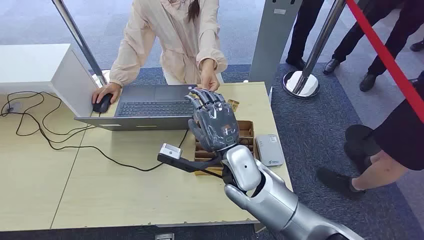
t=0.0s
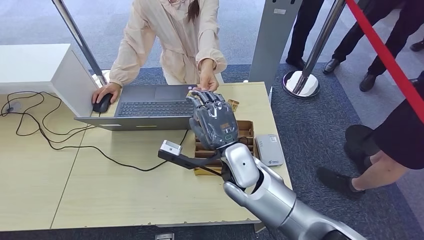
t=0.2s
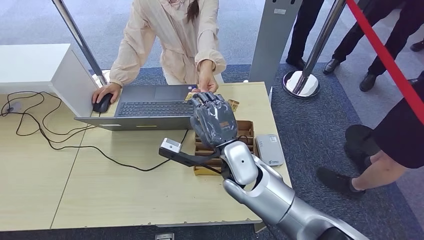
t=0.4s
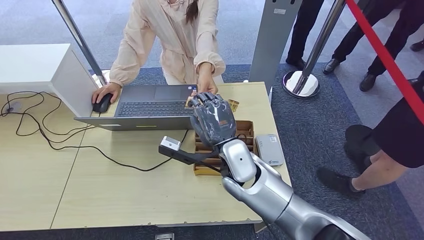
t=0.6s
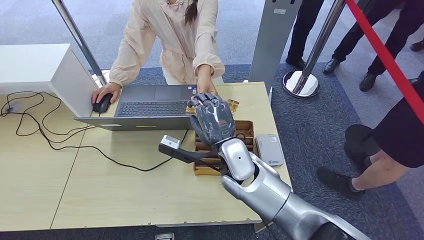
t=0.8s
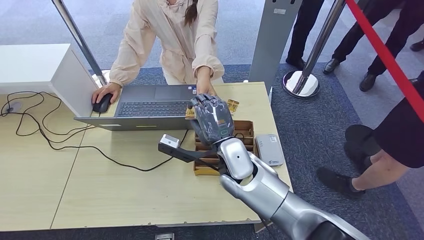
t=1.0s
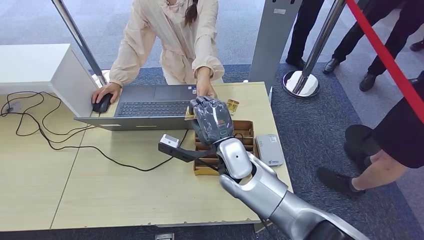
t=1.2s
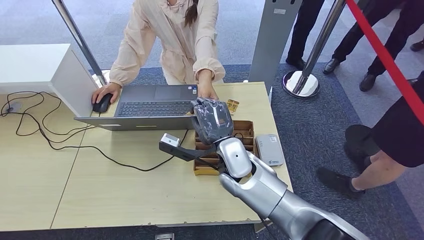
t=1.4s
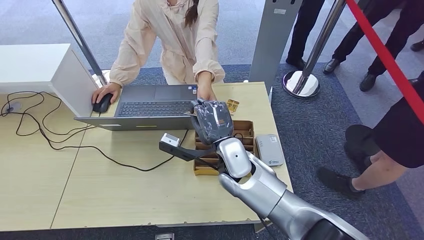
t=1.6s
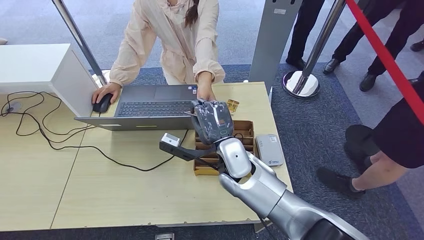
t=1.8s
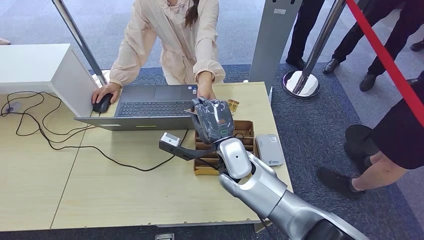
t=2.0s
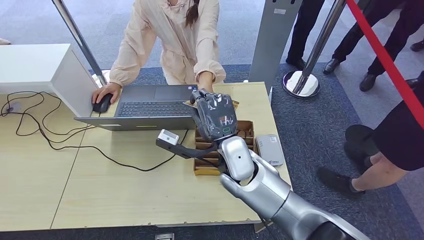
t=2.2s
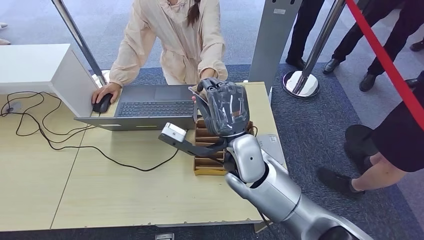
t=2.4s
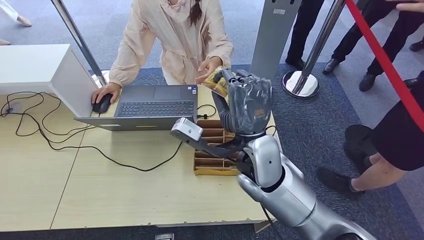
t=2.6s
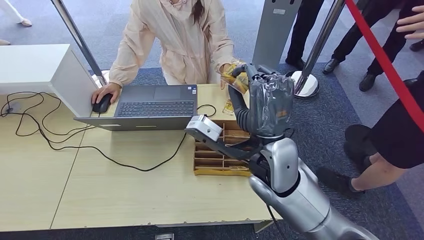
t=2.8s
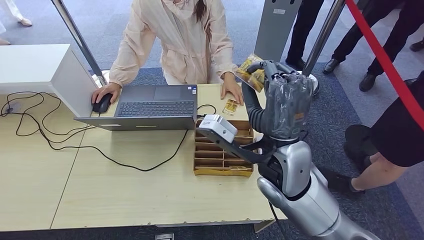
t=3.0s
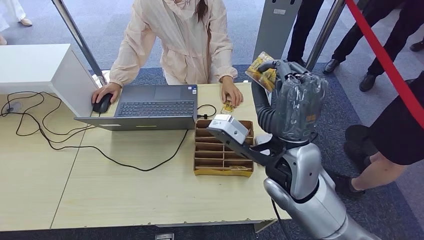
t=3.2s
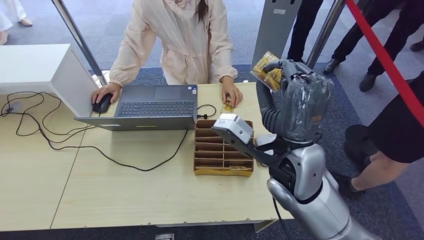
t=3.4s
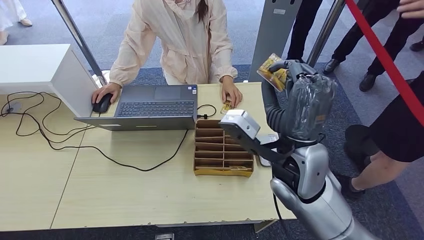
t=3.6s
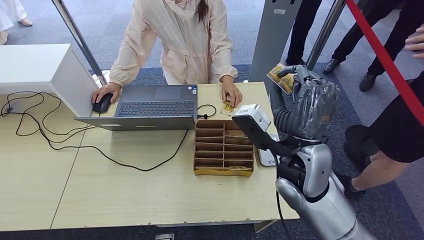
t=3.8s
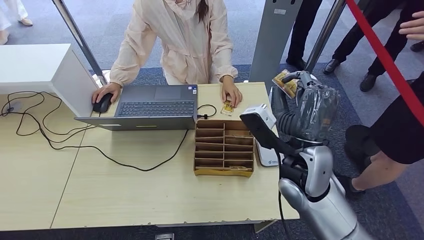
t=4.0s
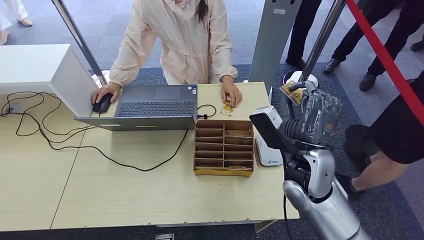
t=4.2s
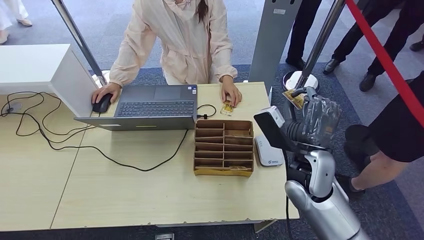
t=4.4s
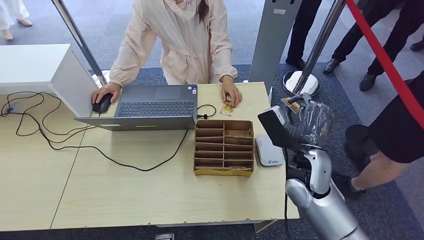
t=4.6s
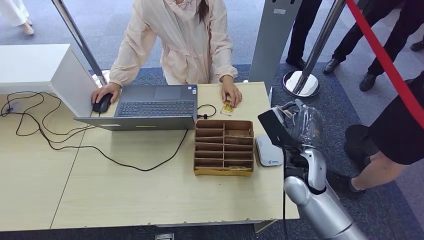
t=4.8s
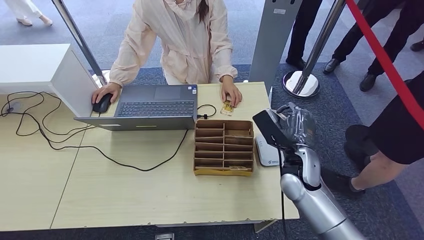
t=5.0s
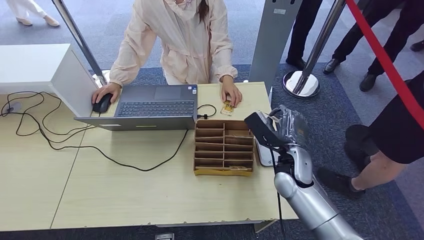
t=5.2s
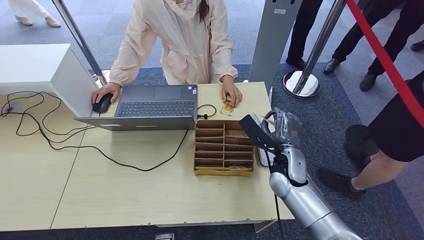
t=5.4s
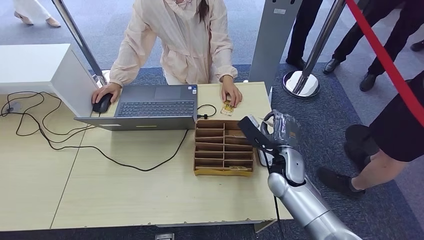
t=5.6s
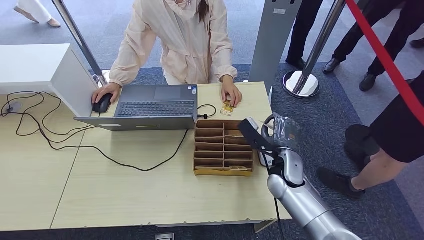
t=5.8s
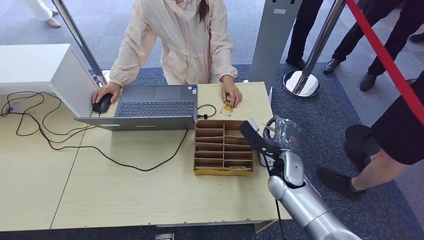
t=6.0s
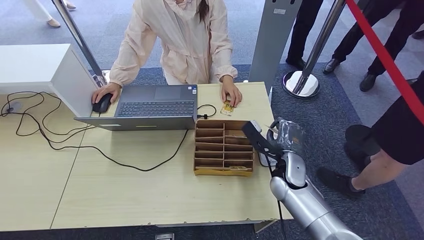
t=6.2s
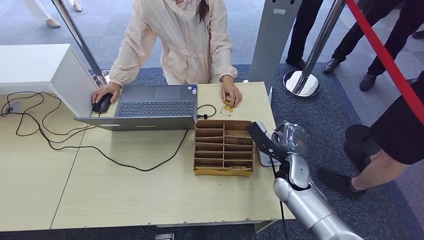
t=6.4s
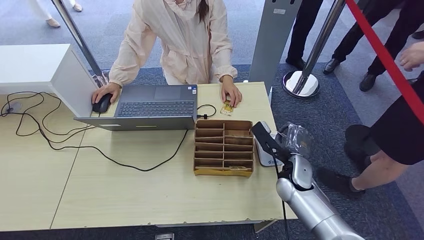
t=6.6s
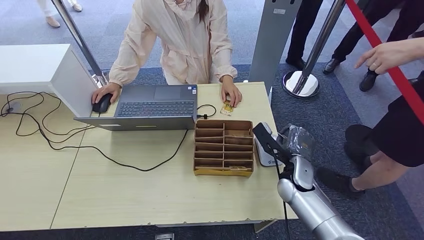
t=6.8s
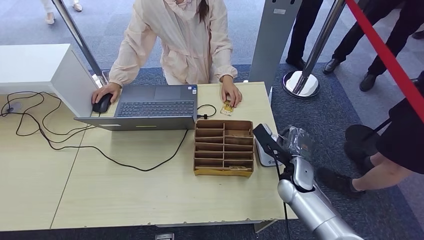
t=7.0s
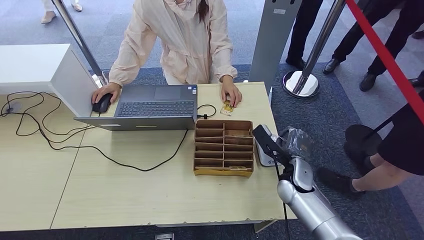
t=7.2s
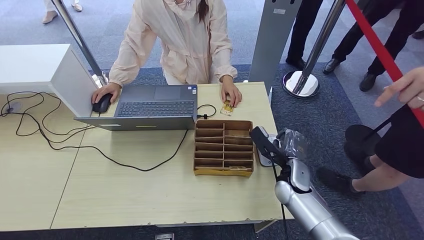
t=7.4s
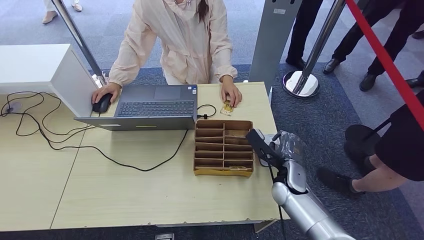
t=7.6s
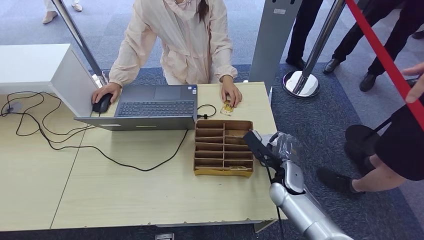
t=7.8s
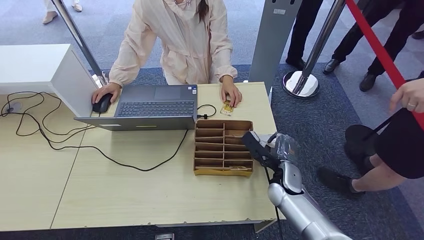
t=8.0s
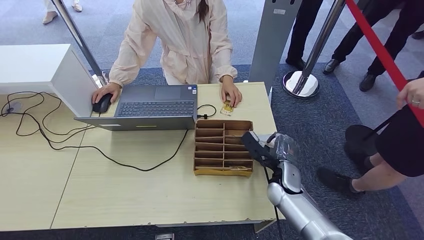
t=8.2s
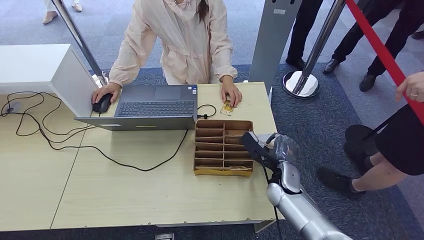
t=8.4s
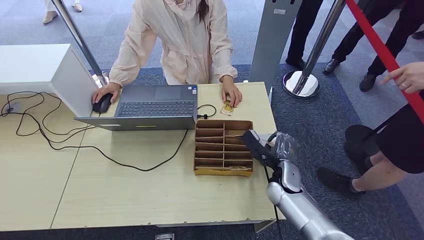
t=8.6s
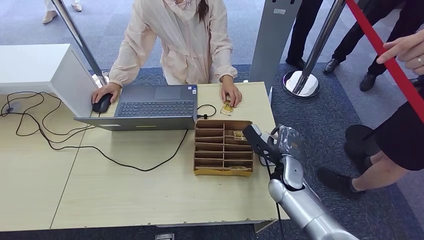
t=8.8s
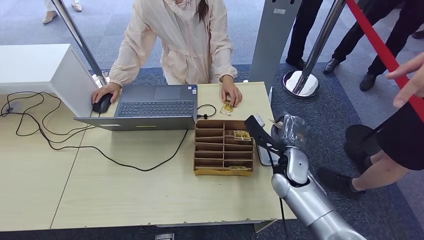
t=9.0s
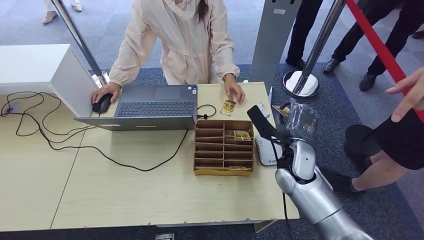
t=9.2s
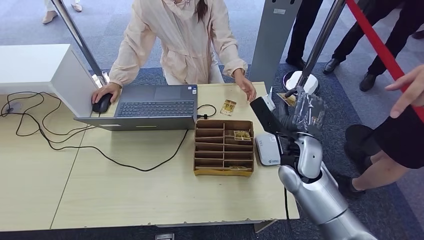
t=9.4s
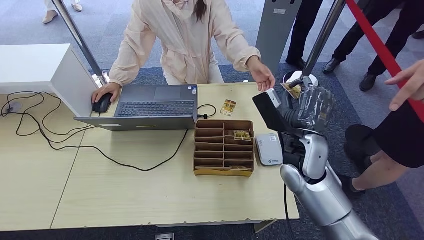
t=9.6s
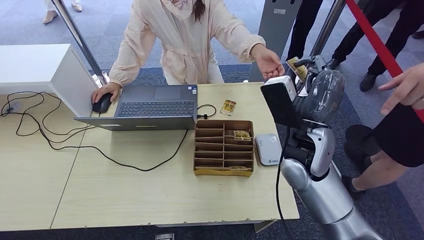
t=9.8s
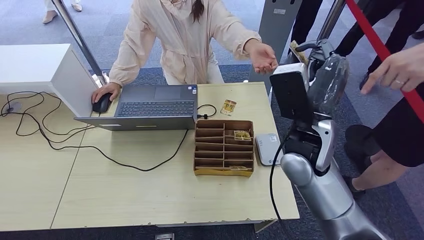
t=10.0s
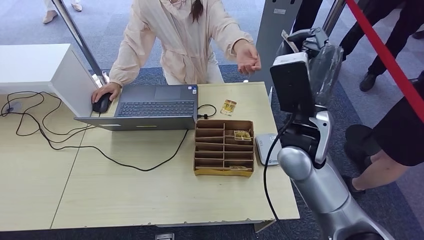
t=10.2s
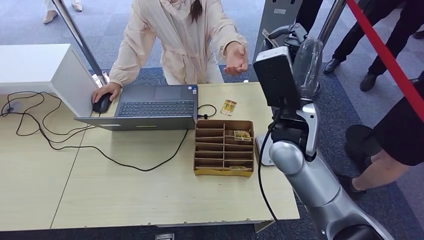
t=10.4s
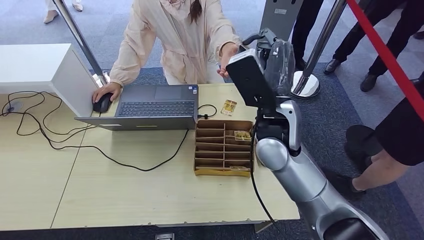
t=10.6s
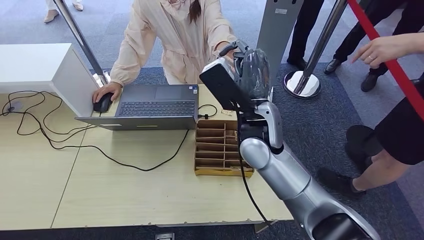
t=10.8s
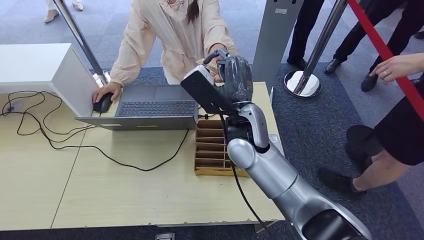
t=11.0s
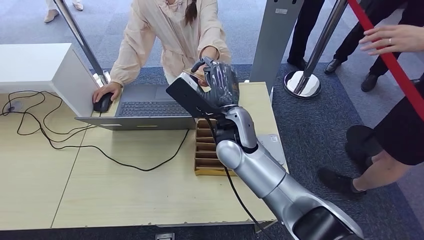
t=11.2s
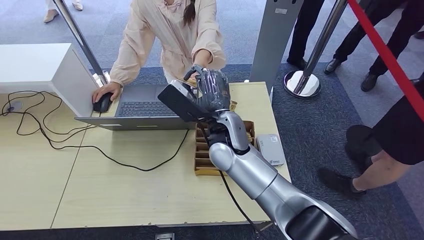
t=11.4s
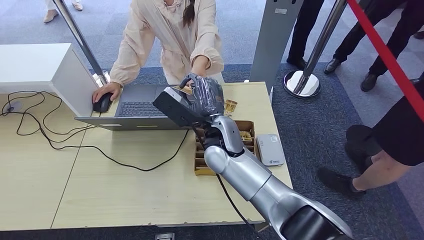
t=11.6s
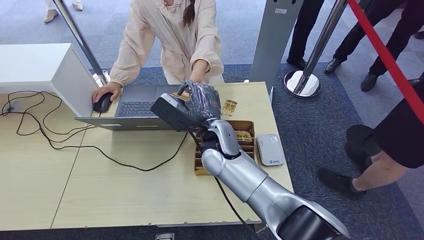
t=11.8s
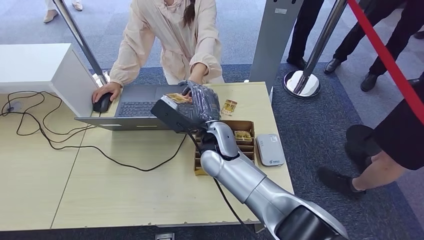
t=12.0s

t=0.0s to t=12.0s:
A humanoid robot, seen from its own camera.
Step, t=0.0s to t=4.0s: Take the ID card from the person's hand.
Step, t=4.2s to t=8.4s: Place the ID card on the card reader.
t=1.6s to t=3.0s: The right hand is displaced upward, to the right and backward by roughly 15 cm.
t=3.0s to t=4.4s: The right hand goes some 10 cm to the right and downward.
t=4.4s to t=6.0s: The right hand travels downward and forward by approximately 10 cm.
t=6.0s to t=9.0s: There are only small adjustments of the hands.
t=9.0s to t=10.4s: The right hand is displaced upward by approximately 20 cm.

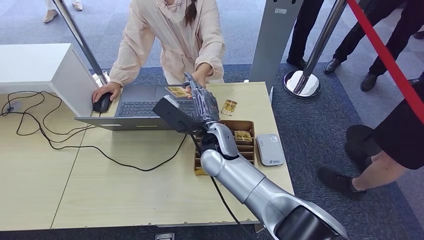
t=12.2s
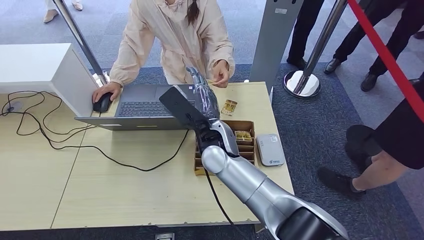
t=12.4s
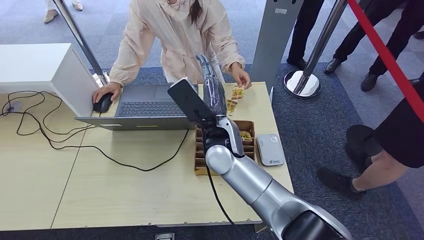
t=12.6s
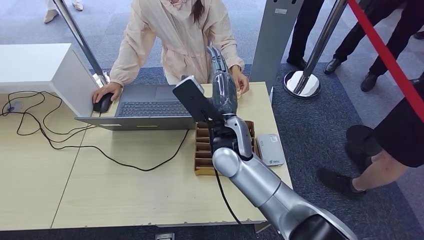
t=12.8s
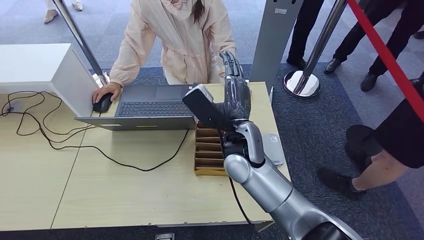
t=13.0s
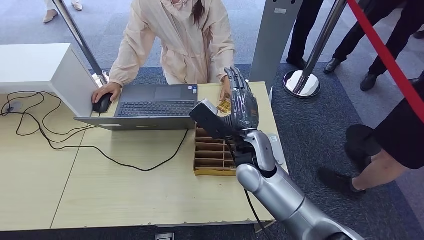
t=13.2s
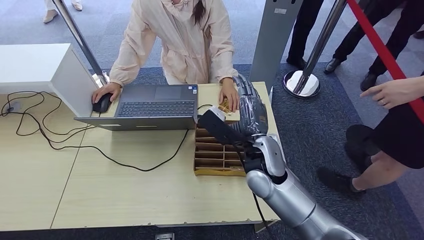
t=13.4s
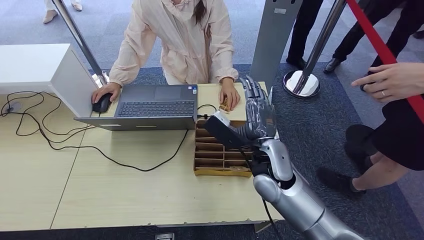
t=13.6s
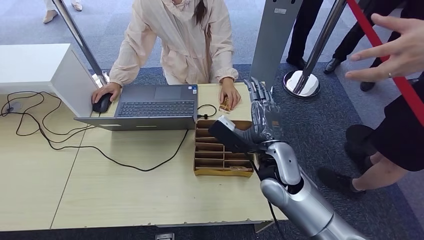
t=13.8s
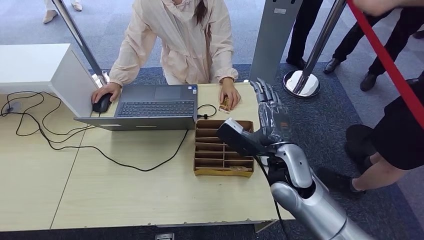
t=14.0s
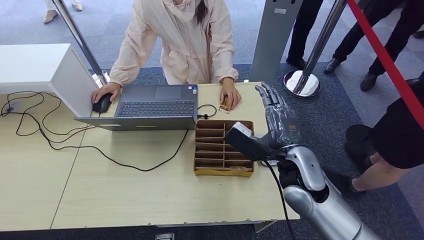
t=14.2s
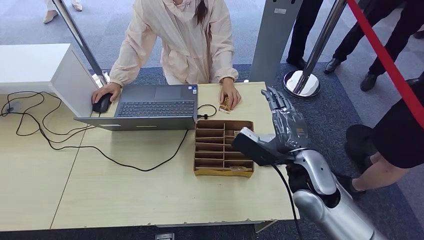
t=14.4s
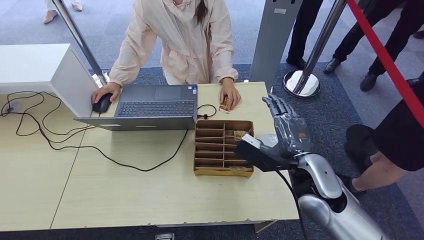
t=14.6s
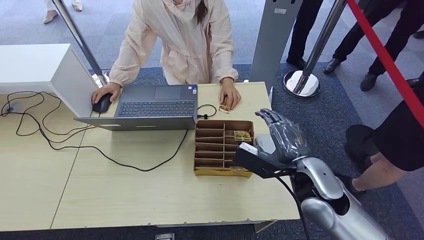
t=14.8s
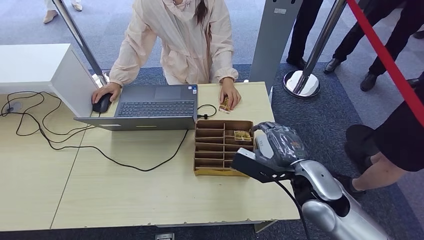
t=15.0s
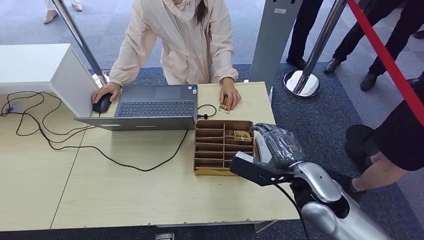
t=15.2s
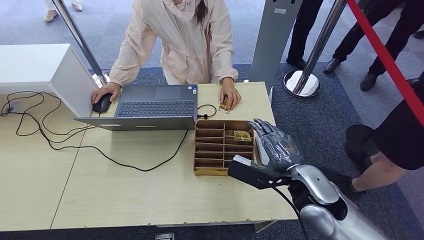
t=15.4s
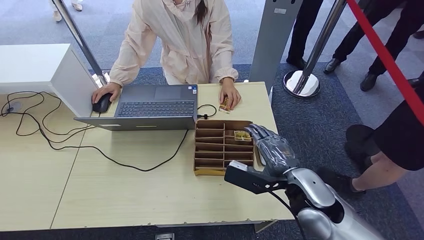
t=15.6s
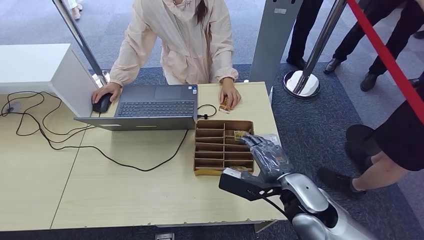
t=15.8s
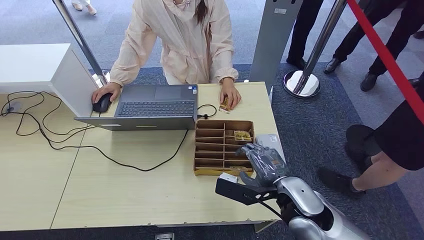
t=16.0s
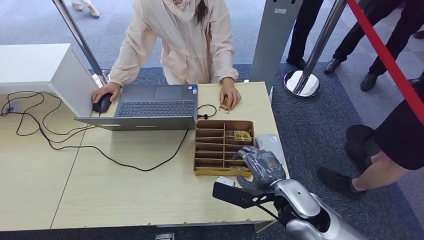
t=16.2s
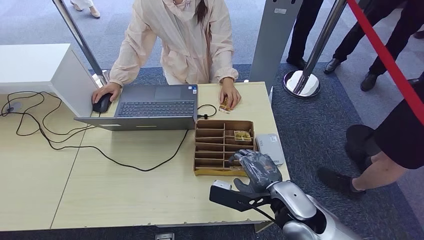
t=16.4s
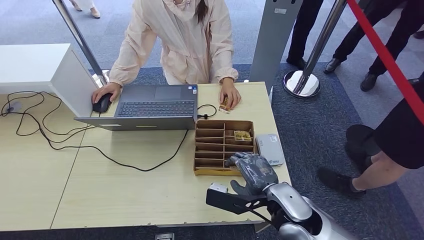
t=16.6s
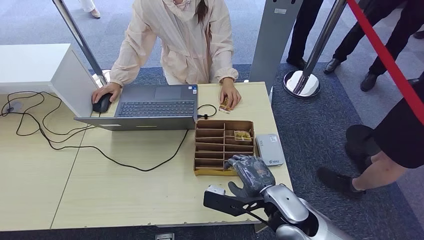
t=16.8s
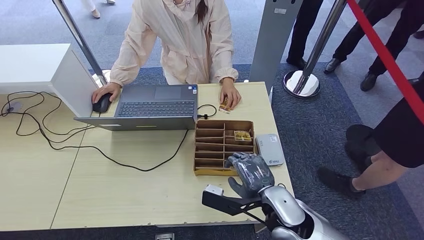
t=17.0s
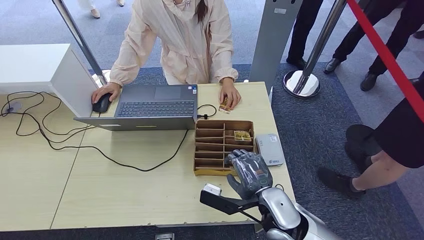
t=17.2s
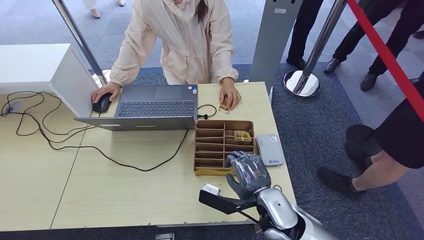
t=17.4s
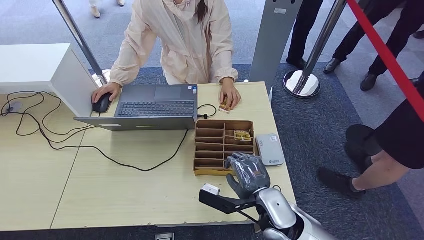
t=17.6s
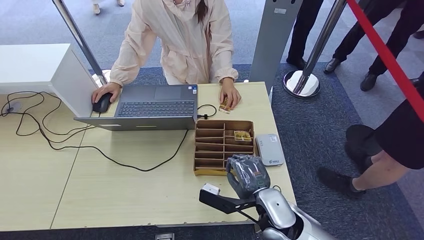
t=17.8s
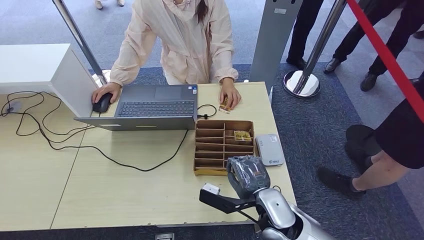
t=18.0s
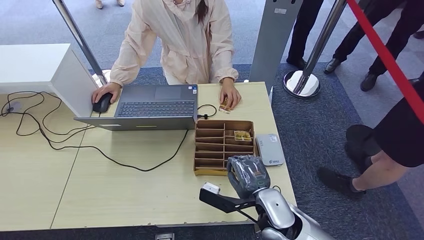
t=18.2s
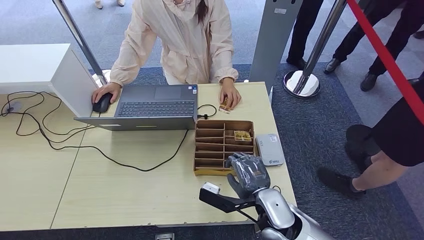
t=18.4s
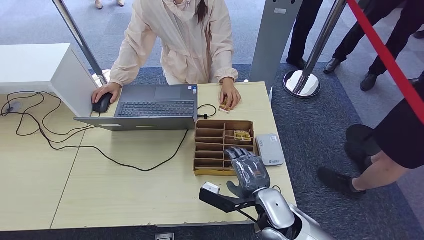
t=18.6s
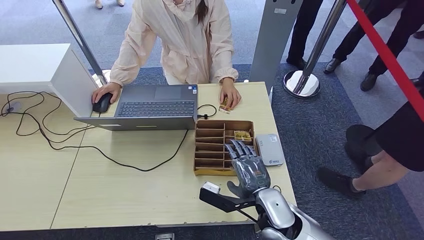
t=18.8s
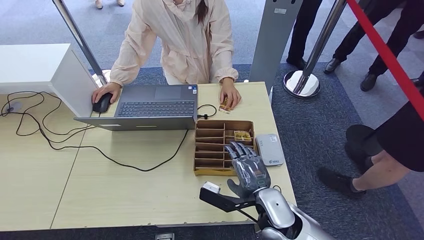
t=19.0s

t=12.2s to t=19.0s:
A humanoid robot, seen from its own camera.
t=12.2s to t=13.6s: The right hand heads to the right and backward, covering roughly 15 cm.
t=13.6s to t=15.0s: The right hand heads to the right and backward, covering about 10 cm.
t=15.0s to t=16.2s: The right hand moves roughly 5 cm.
t=16.2s to t=17.6s: The right hand changes place by some 5 cm.
t=17.6s to t=19.0s: Both hands stay about where they are.
